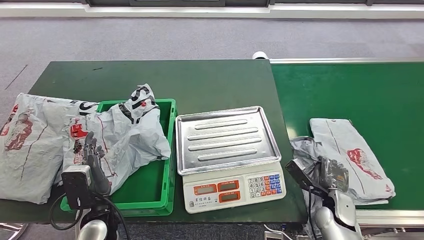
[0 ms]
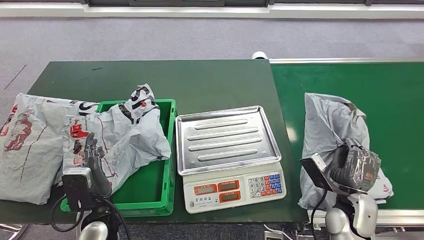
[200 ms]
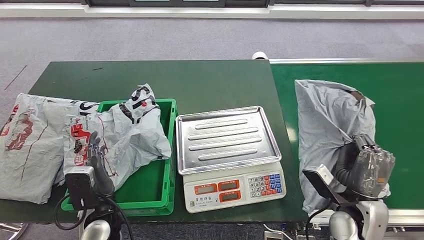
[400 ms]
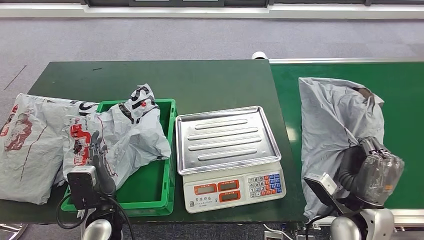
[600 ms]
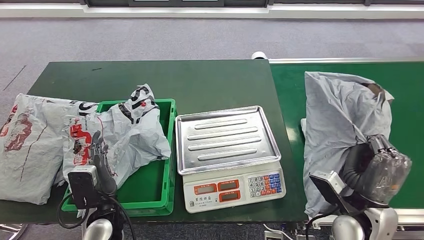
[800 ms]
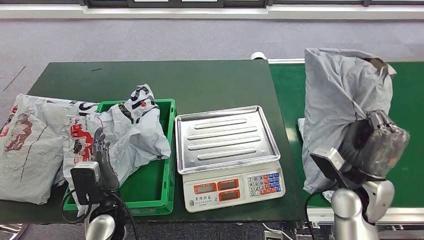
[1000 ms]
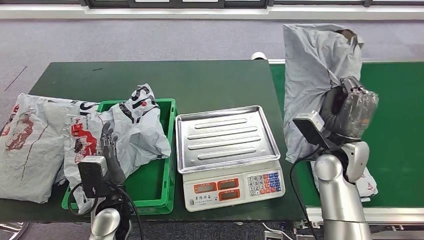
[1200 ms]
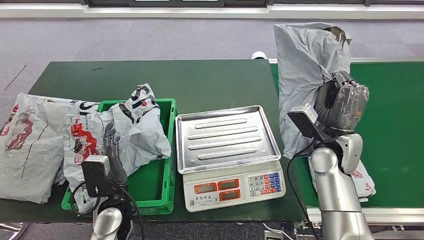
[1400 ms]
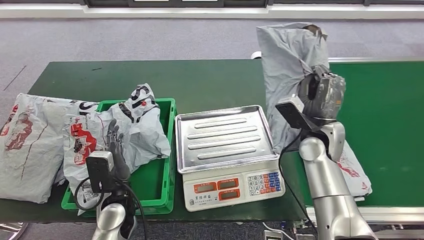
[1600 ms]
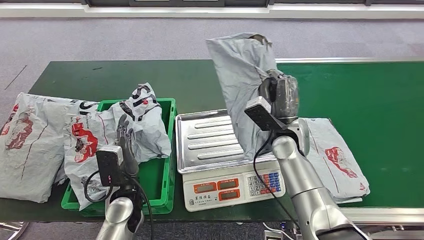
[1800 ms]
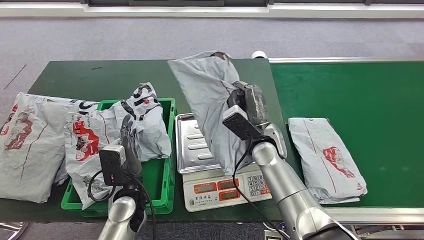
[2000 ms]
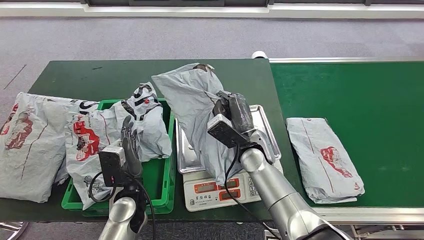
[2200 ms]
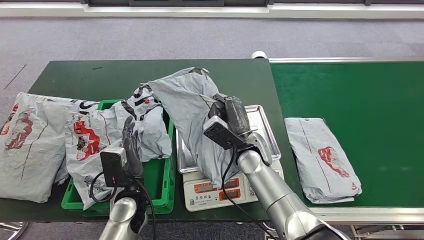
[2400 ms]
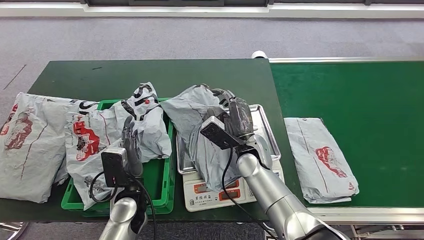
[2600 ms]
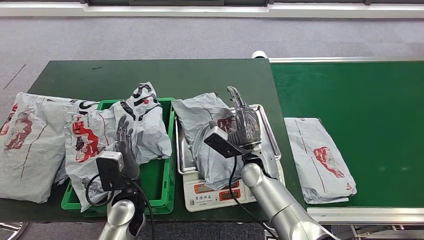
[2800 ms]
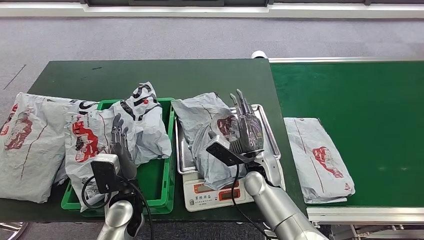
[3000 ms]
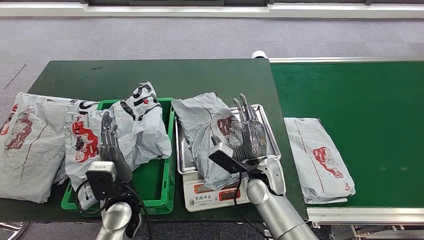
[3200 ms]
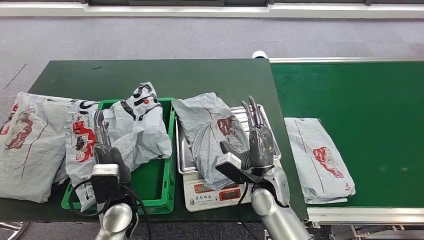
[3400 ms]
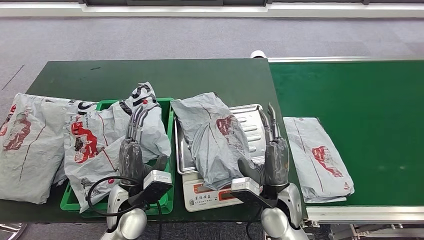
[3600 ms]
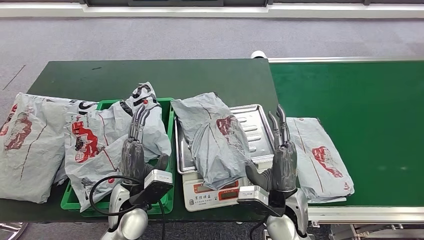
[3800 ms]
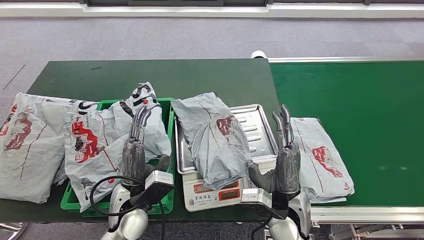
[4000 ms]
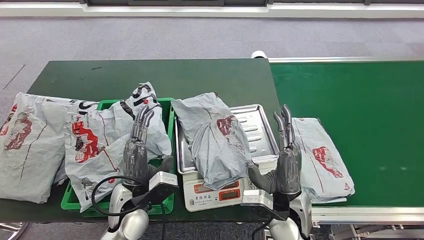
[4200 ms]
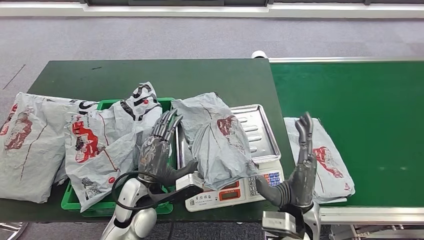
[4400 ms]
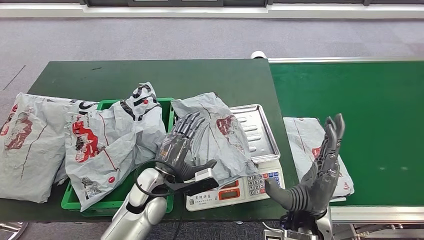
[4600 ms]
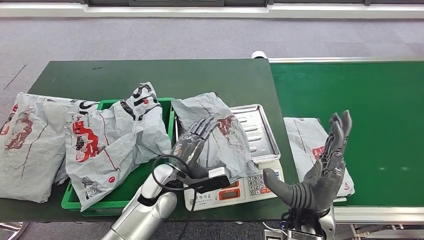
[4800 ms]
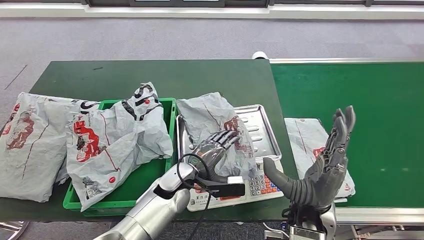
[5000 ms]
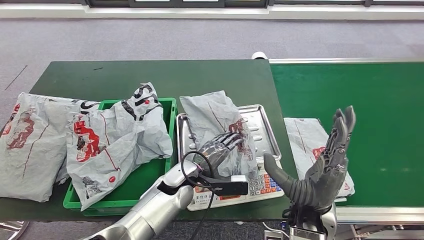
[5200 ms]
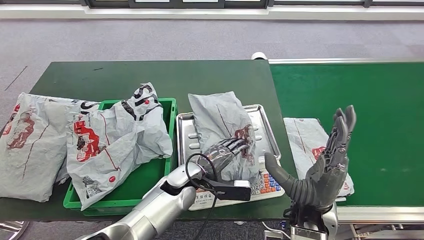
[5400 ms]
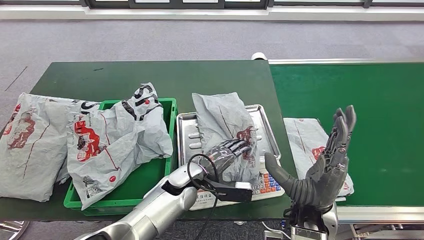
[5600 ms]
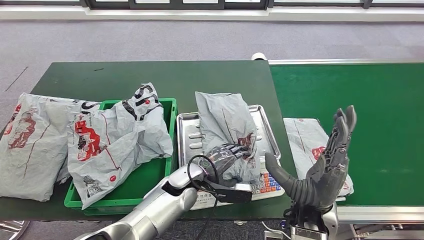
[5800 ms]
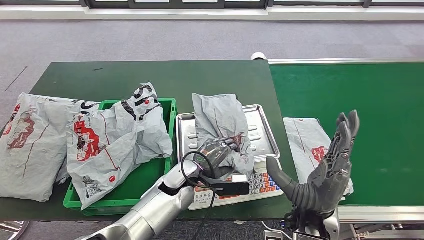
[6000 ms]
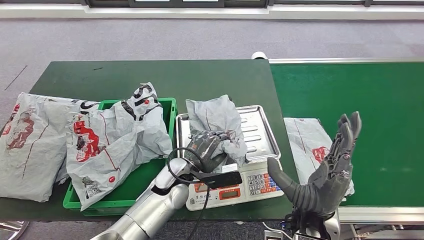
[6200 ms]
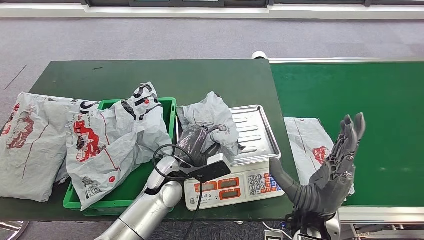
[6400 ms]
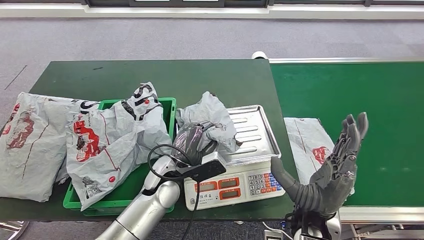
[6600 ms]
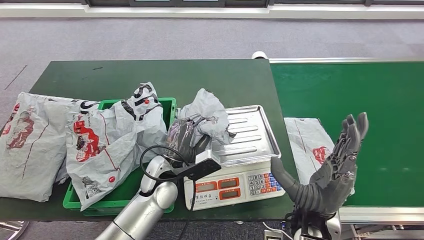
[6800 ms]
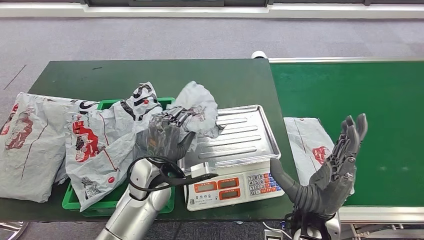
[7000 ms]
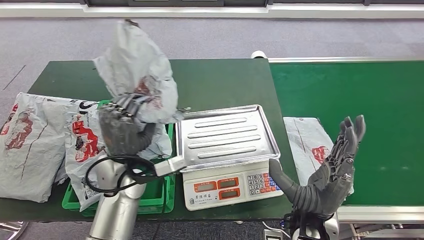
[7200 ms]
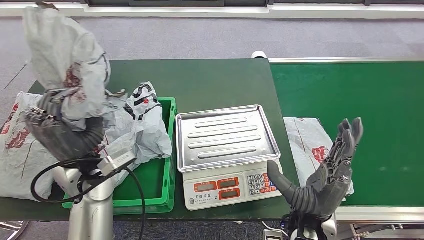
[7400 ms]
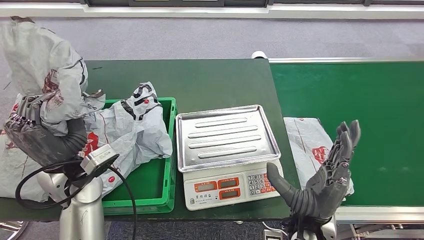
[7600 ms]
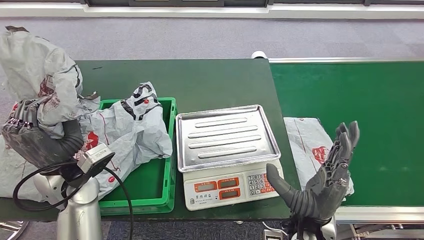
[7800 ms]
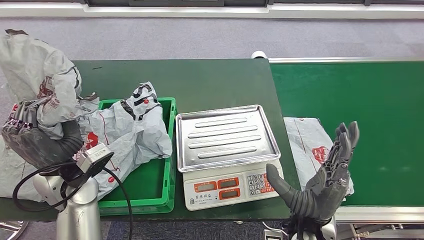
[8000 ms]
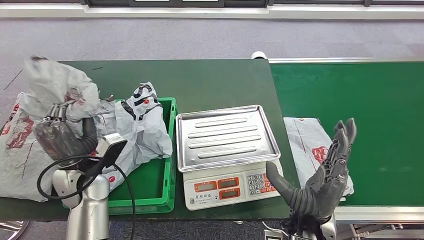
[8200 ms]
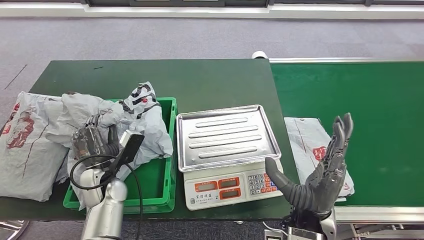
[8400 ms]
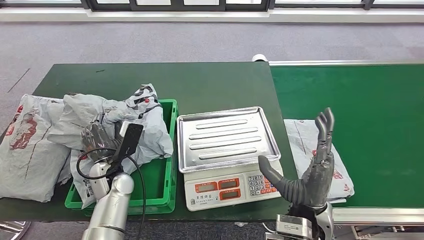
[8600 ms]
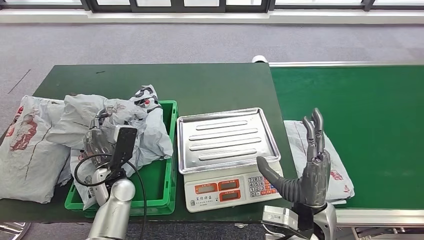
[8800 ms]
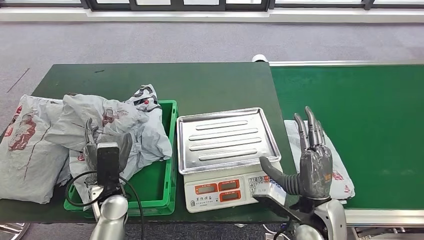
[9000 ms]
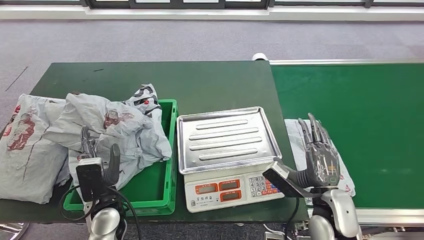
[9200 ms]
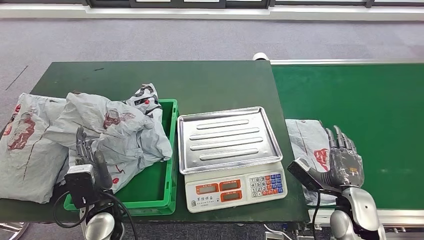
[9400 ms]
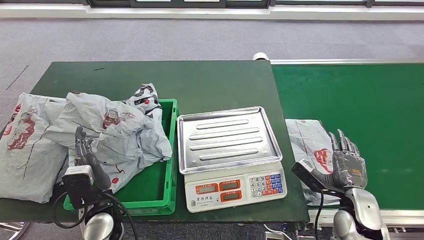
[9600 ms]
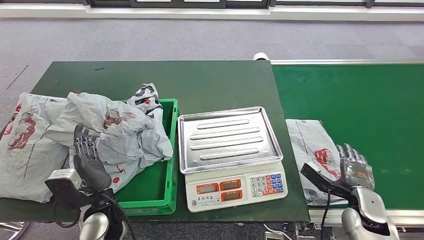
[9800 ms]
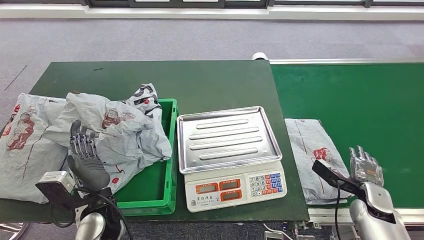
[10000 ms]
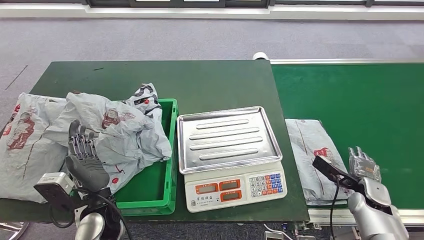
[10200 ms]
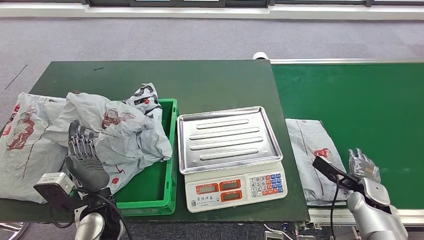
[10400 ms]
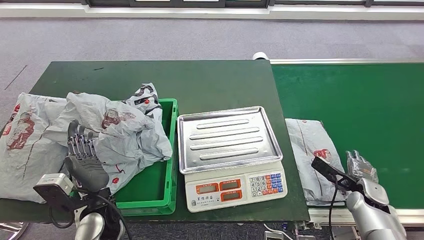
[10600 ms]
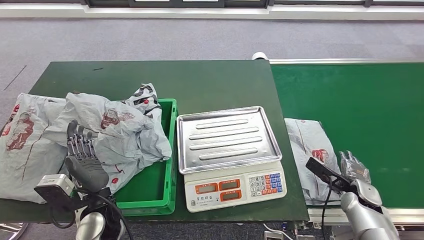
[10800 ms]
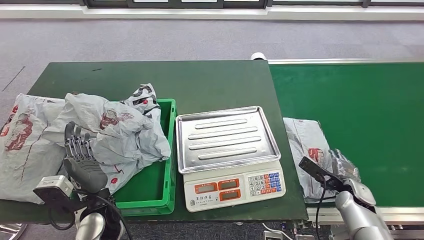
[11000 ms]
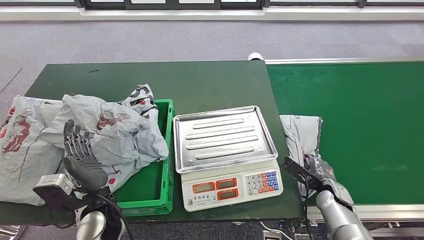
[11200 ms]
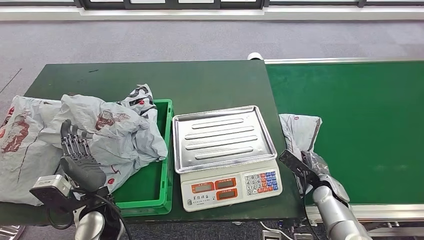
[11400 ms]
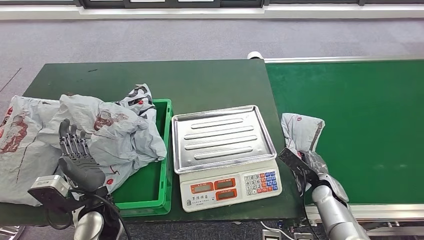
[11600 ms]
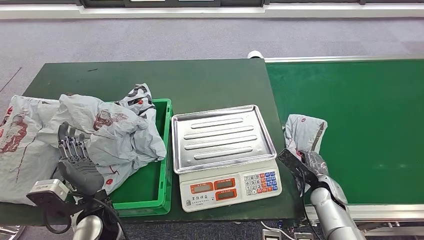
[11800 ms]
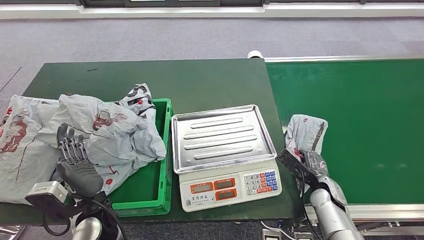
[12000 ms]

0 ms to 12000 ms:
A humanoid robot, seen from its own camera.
Step, 1200 ms to 2200 ms: Pick up the parcel from the conveyor belt.
Step, 2600 ms to 6600 ms: Place the parcel onto the inbound machine.
Step, 6800 ms to 9800 ms: Pick up the parcel from the inbound machine.
3000 ms to 4400 ms: The right hand goes roughly 15 cm backward and to the right.

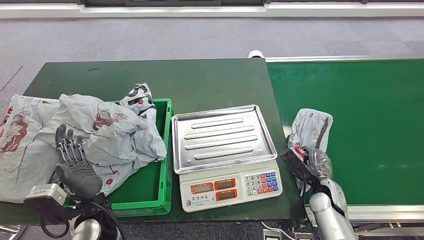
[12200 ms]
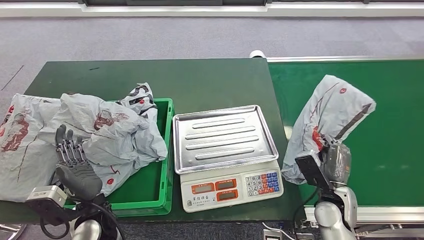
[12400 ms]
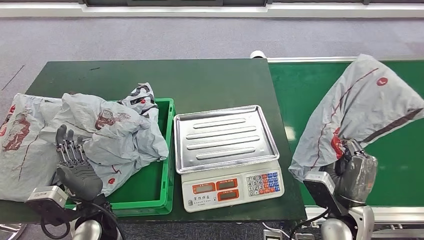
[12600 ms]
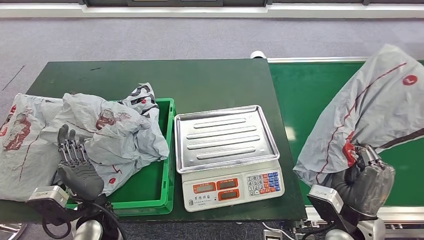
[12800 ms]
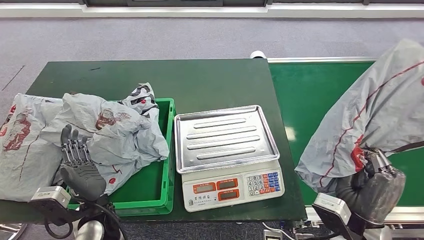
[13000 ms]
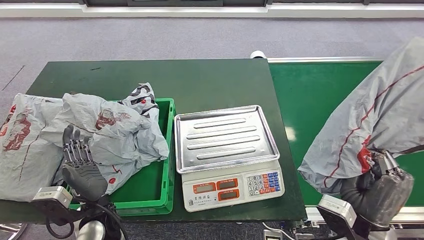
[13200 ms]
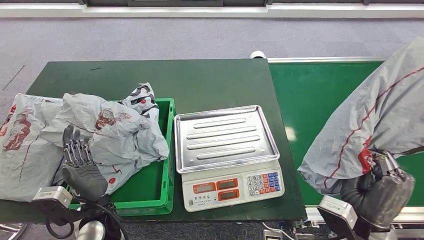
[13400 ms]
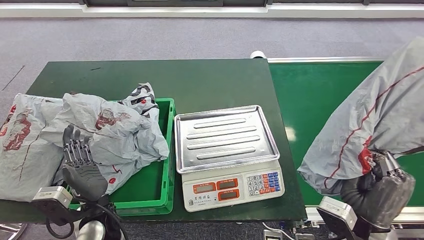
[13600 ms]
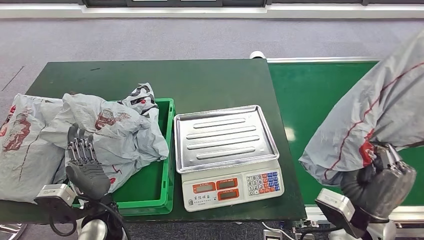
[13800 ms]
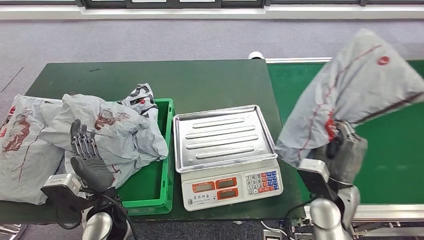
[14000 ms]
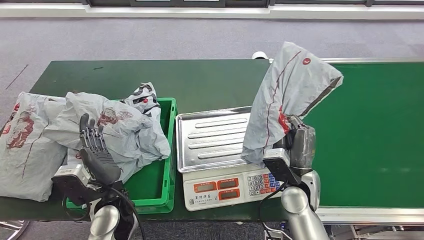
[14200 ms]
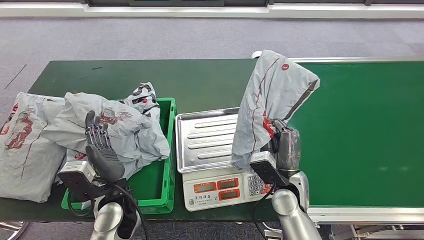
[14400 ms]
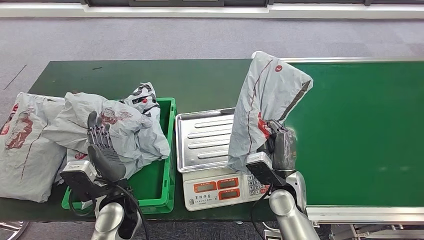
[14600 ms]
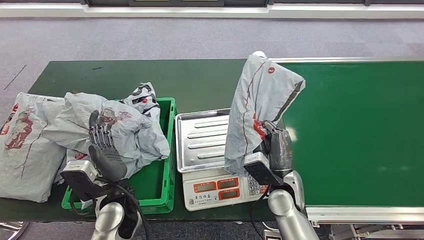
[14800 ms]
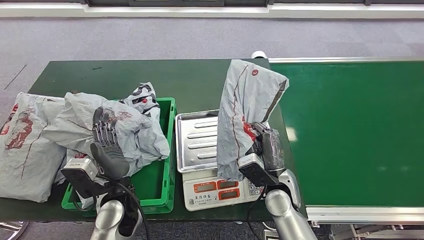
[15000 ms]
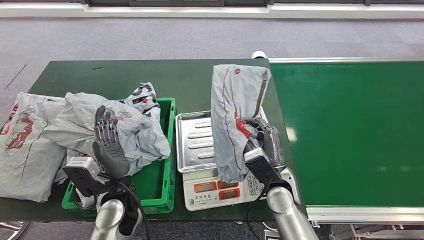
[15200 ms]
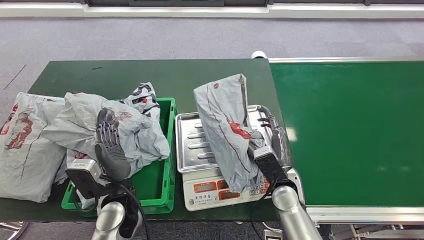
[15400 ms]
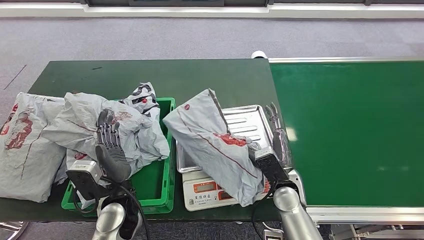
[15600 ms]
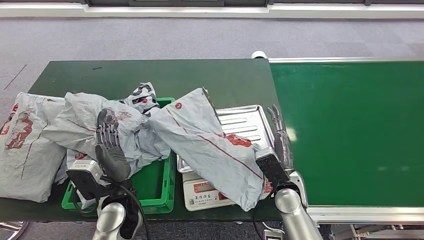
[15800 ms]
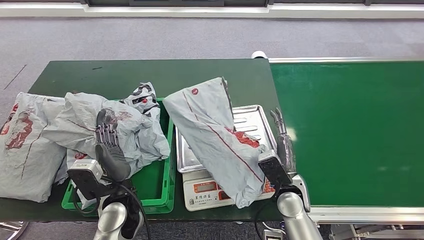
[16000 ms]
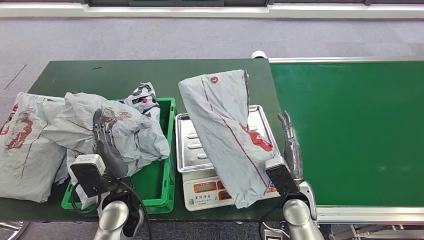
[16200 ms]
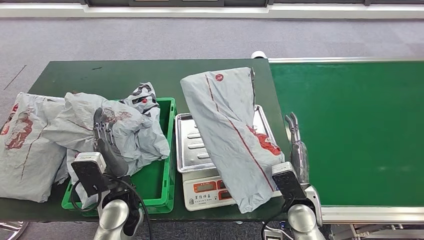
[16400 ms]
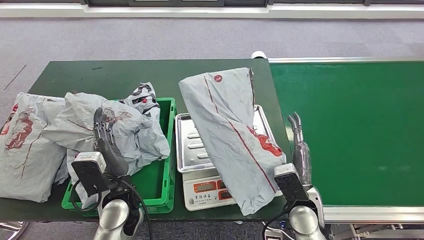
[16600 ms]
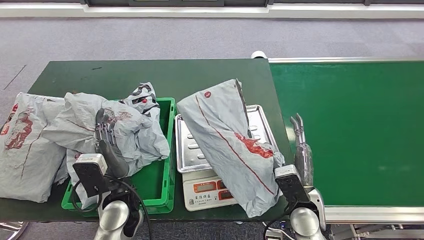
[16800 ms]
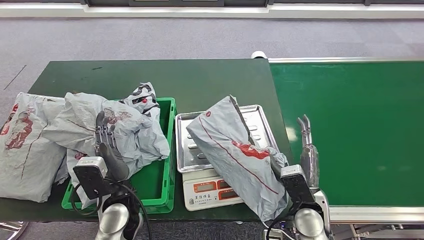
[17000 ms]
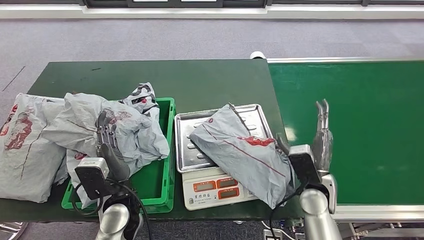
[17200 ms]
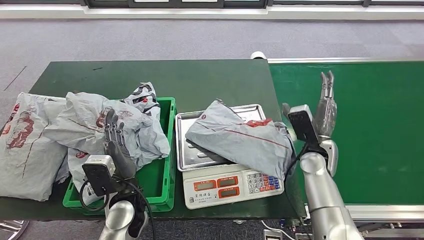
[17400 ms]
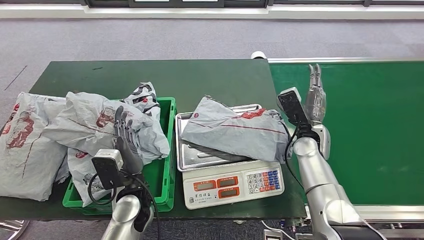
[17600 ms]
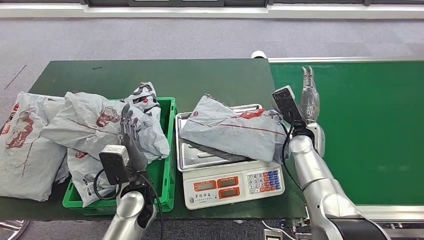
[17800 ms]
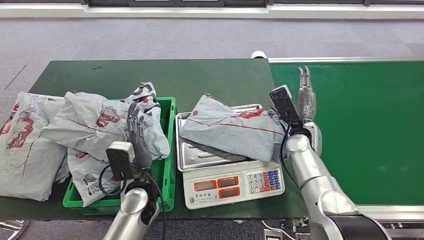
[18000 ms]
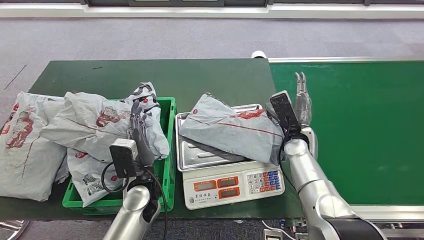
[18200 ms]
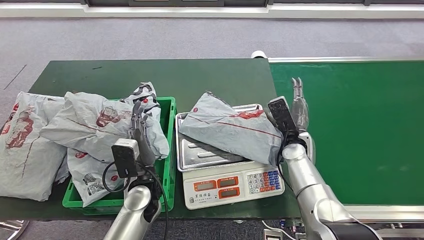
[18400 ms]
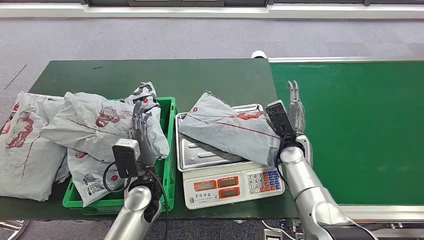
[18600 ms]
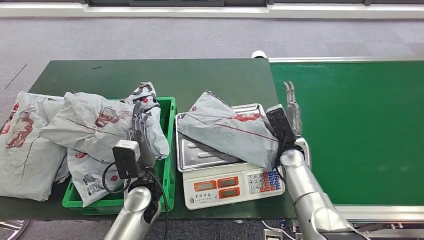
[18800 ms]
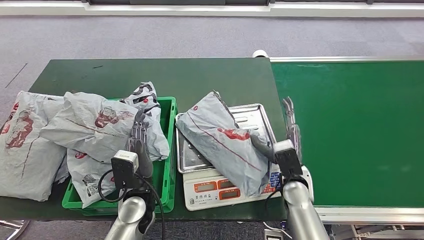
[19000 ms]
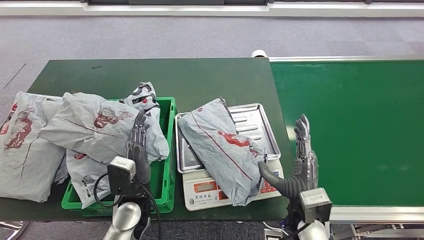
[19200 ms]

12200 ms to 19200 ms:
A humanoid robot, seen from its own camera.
Step, 13000 ms to 13600 ms: Pick up the parcel from the conveyor belt.
Step, 14000 ms to 16800 ms: Place the parcel onto the inbound machine.
15000 ms to 16400 ms: The right hand changes place by approximately 5 cm.
